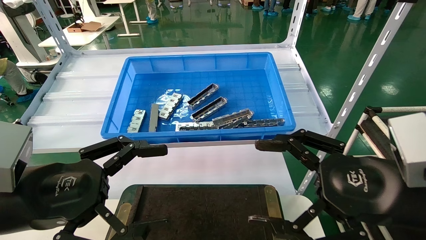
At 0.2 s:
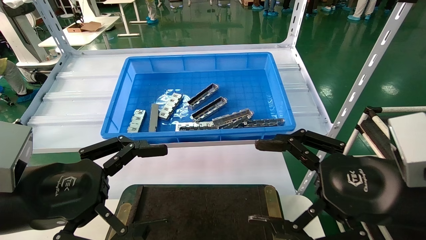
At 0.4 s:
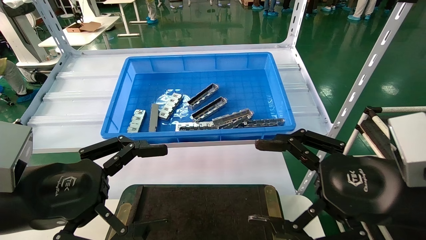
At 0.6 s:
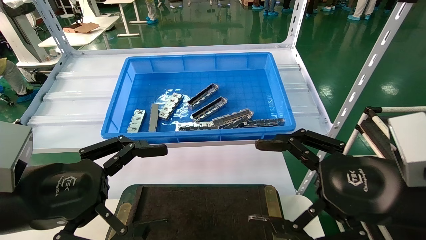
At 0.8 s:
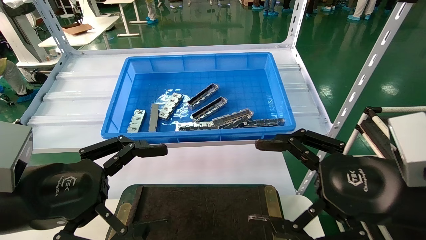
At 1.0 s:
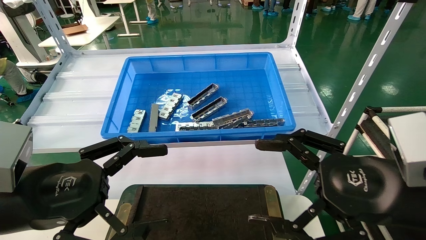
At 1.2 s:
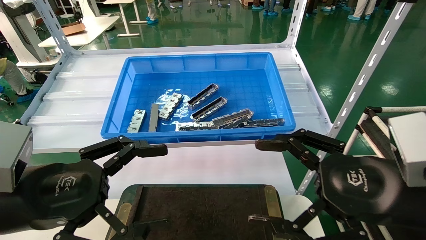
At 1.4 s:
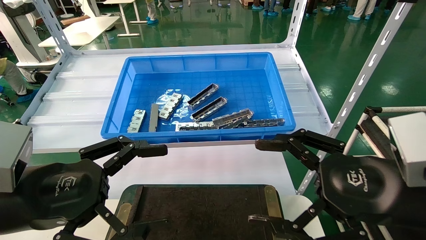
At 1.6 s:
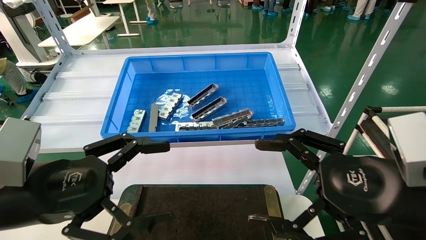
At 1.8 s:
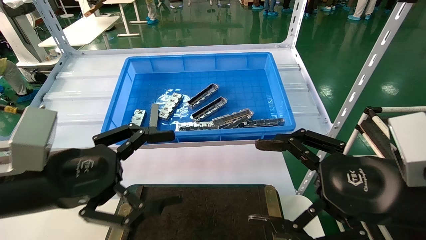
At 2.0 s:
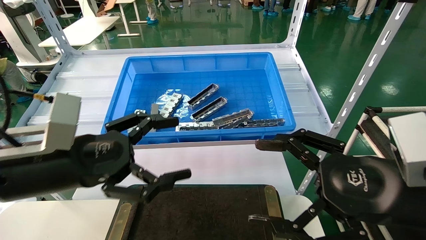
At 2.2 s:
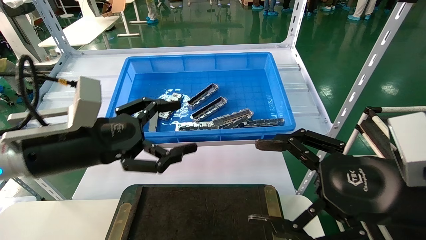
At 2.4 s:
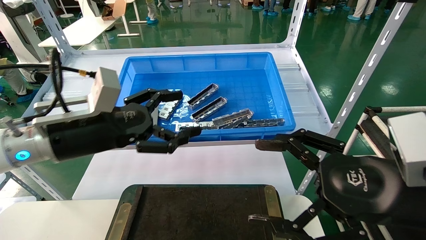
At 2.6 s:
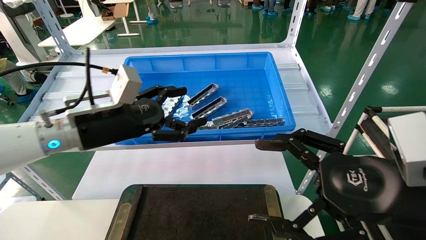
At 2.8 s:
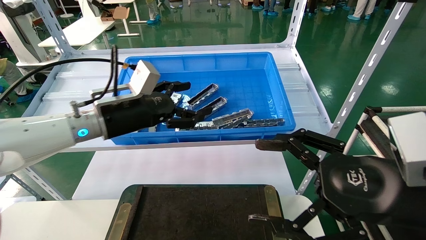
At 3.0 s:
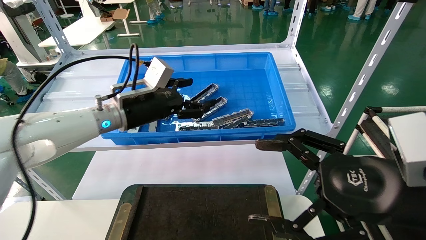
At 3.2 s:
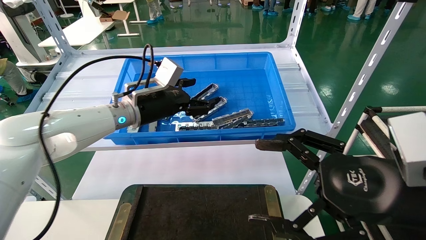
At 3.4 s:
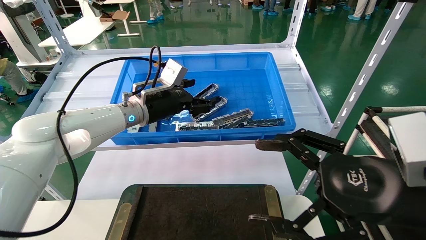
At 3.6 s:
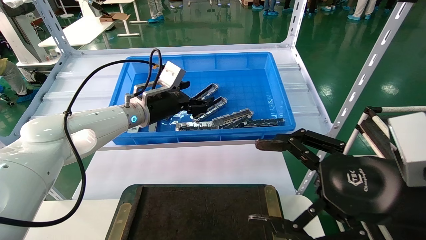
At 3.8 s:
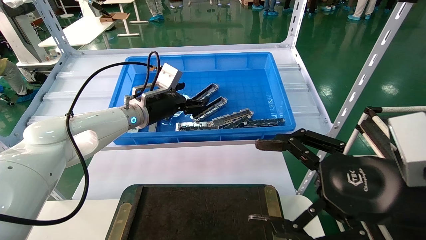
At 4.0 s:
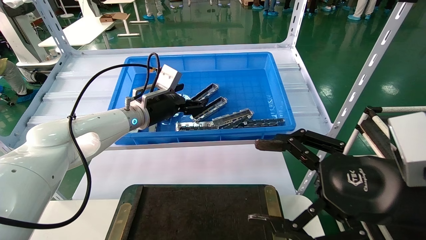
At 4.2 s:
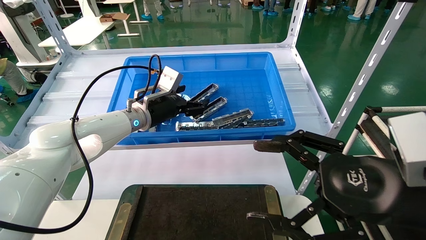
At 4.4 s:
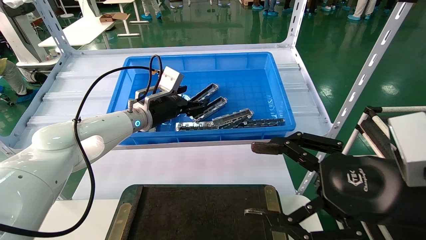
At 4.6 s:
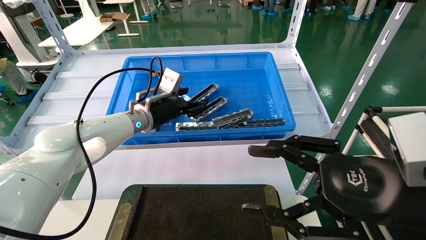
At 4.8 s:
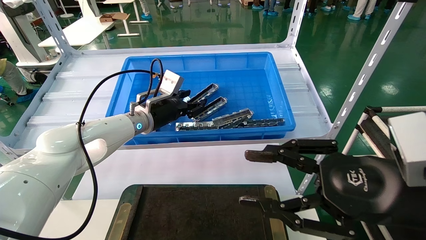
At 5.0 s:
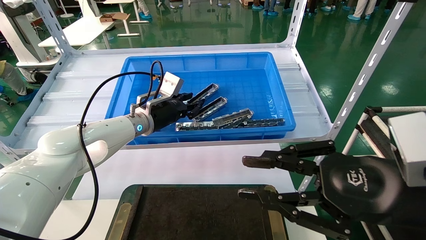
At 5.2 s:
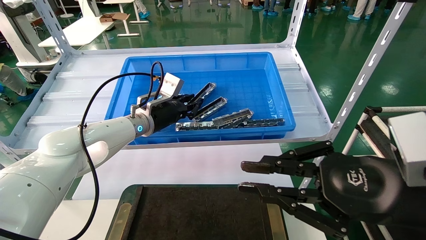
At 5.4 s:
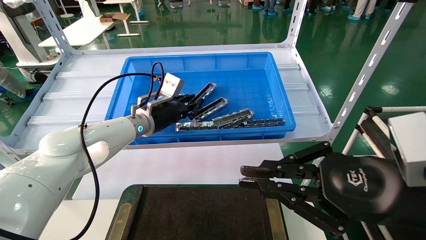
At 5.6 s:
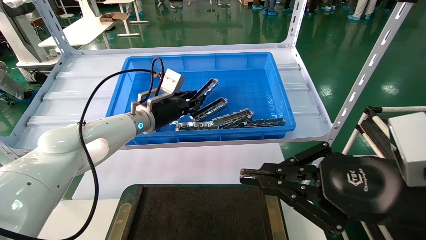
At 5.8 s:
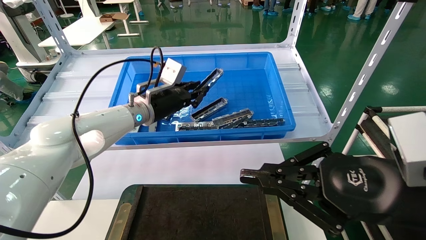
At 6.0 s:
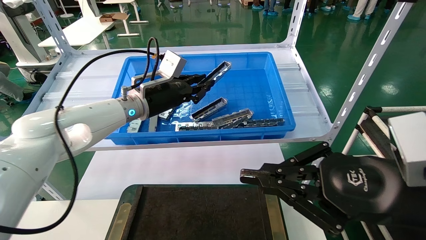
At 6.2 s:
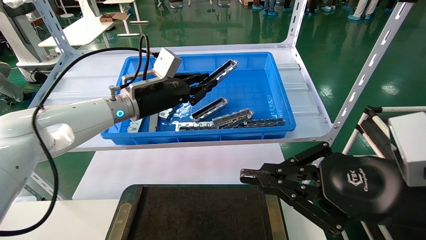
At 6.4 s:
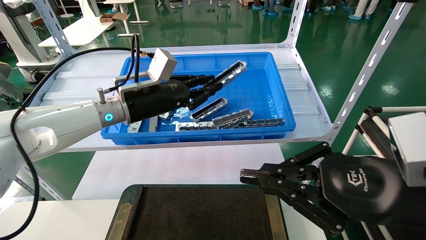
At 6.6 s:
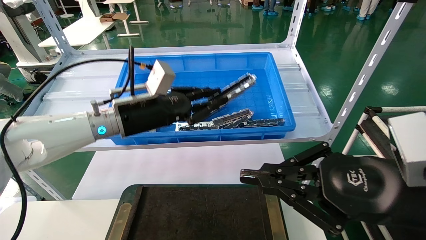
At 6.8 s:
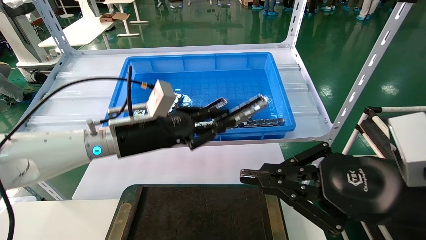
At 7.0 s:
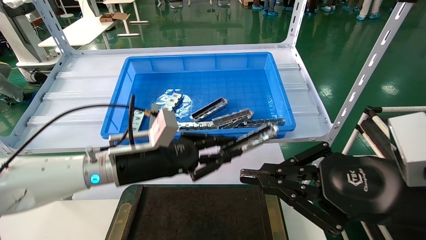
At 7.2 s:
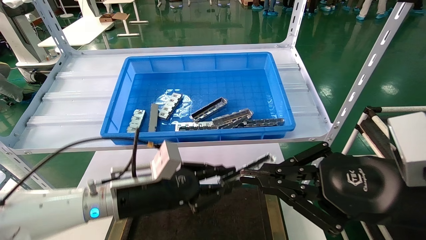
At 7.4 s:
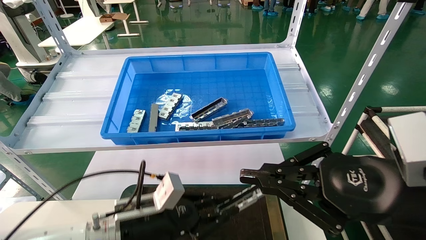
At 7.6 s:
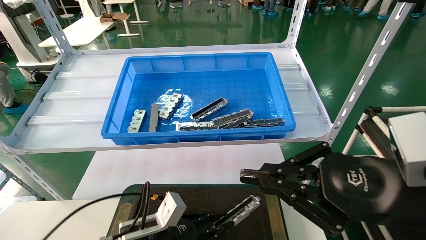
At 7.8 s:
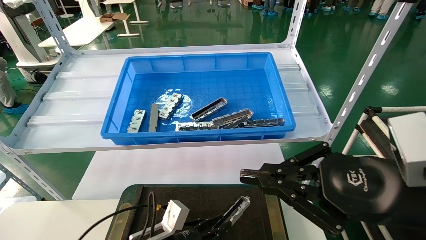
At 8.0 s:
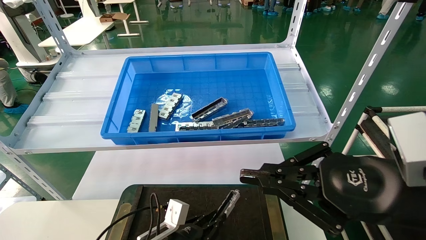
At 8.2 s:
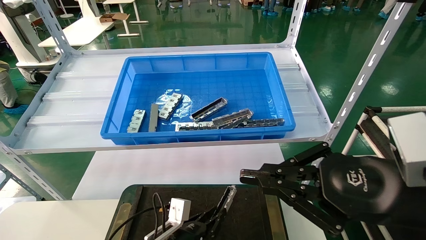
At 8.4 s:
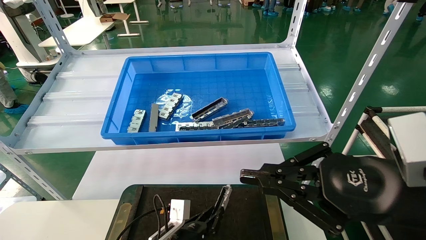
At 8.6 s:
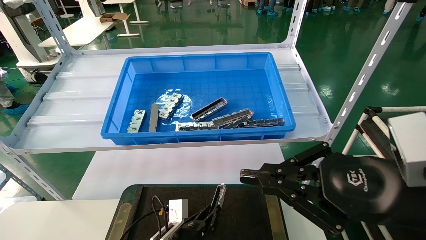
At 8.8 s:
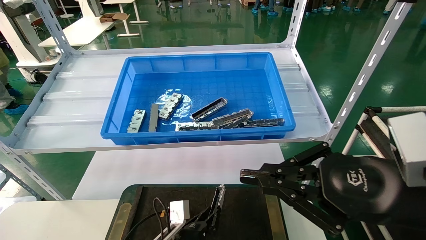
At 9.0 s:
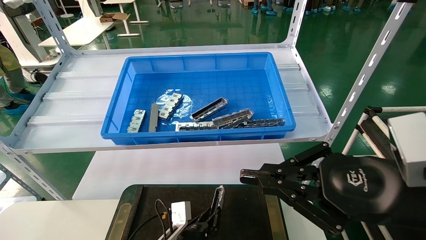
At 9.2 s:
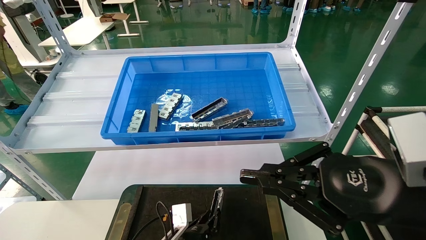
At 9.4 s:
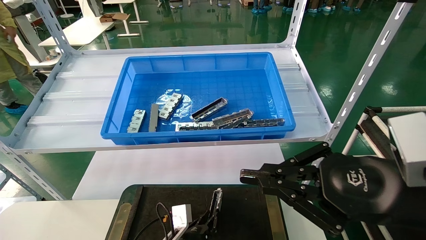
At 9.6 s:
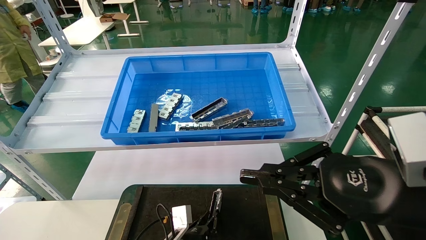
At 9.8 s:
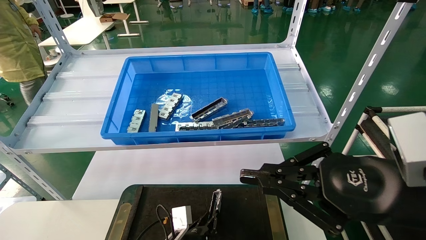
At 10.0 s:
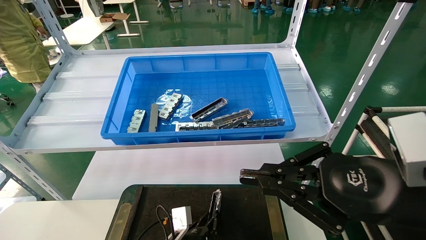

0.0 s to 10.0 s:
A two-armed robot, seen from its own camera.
Task of the whole recording: Grasp the part with one hand and place it on the black container.
Step, 1.8 to 5.2 s: Pick up the front USB bracket from the feeding area.
0.0 to 1.4 s: Neither gripper changes place.
1.4 to 2.8 s: The left gripper moves forward, approximately 20 cm.
2.8 to 4.2 s: The left gripper is displaced forward by some 10 cm.
4.2 to 5.8 s: The right gripper closes its fingers, while the left gripper closes.
5.8 to 7.2 s: The left gripper is displaced backward and downward by roughly 20 cm.
7.2 to 8.6 s: The left gripper shifts roughly 20 cm downward.
8.6 to 10.0 s: The grippers stay close to where they were, moving slightly.

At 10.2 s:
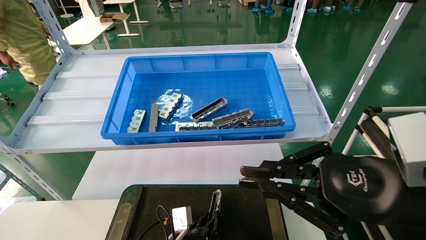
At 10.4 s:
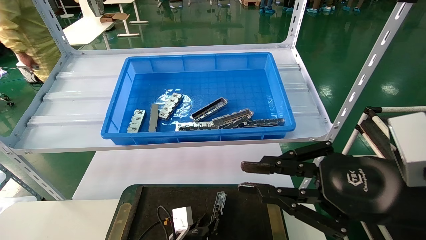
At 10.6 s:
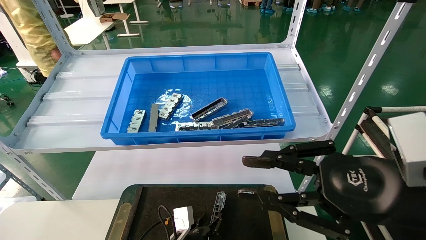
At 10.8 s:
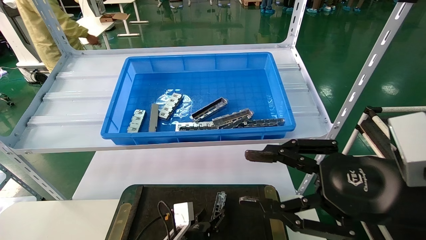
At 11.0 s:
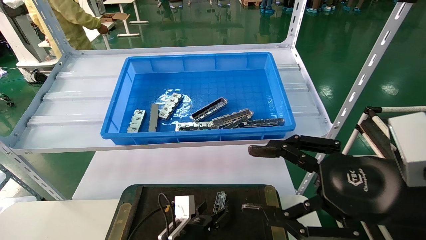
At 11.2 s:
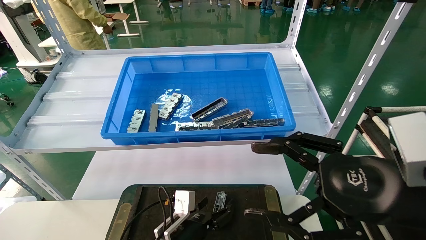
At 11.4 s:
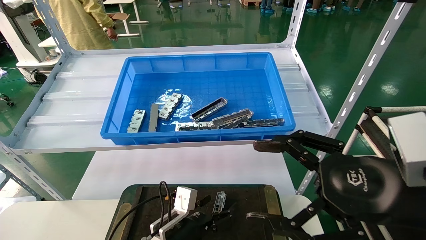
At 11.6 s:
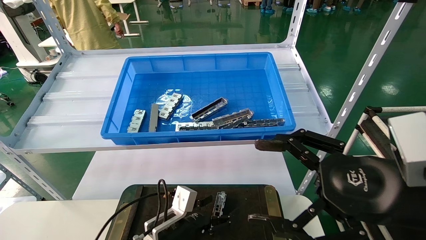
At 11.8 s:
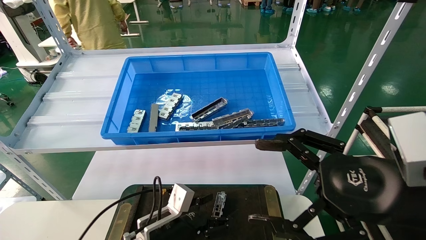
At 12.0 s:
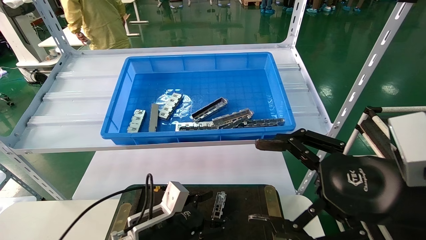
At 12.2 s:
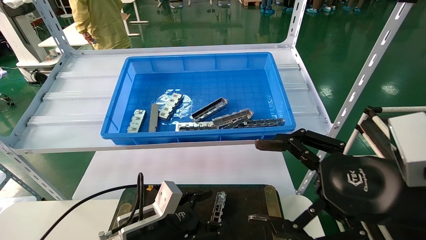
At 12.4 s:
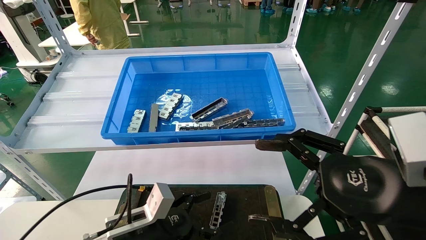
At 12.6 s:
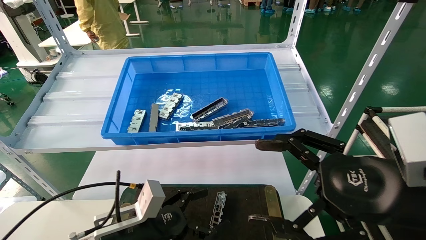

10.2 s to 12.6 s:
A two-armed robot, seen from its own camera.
Task of the whole recording: Grasp the part with one hand and place it on the black container.
10.2 to 11.4 s: The left gripper moves upward, some 5 cm, and opens. Meanwhile the right gripper opens up.
11.4 to 12.6 s: The left gripper goes roughly 10 cm upward, to the left and backward.

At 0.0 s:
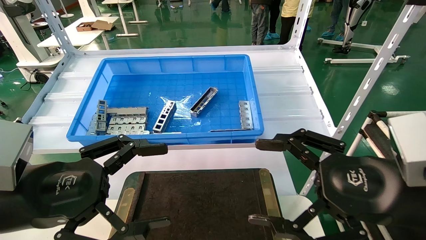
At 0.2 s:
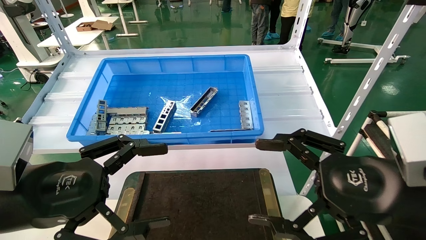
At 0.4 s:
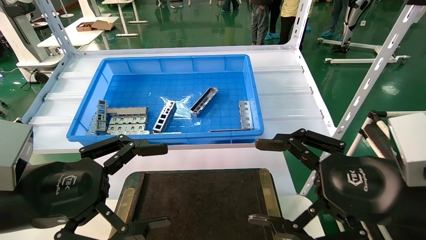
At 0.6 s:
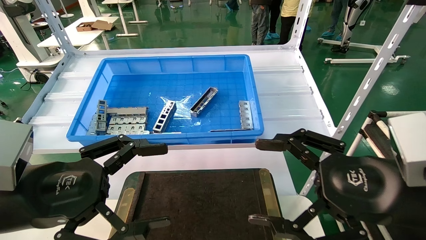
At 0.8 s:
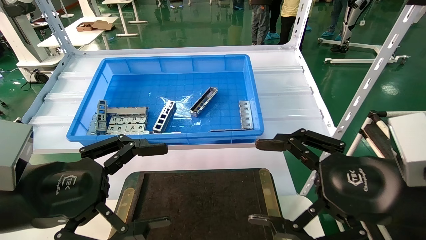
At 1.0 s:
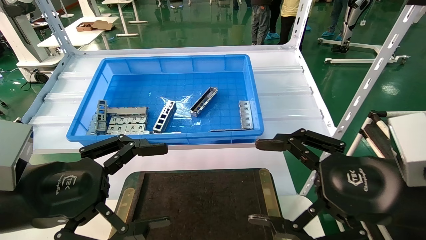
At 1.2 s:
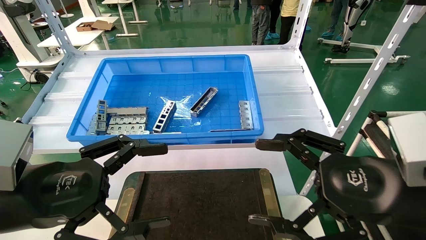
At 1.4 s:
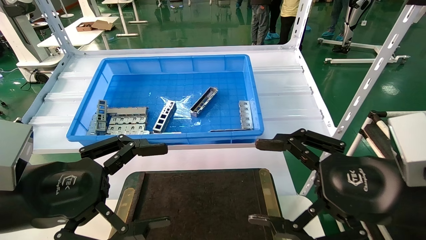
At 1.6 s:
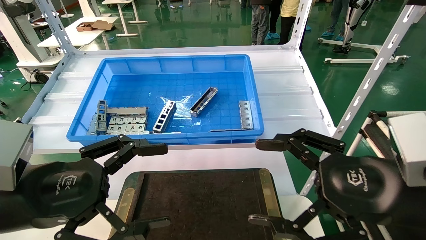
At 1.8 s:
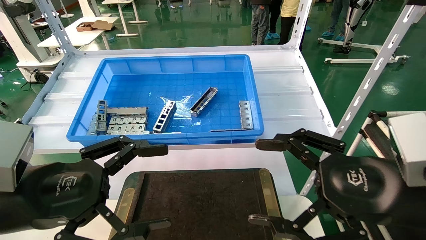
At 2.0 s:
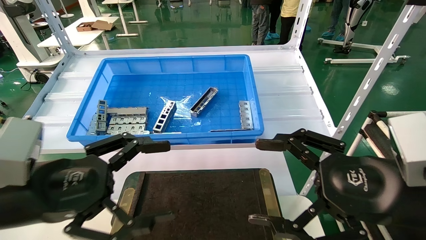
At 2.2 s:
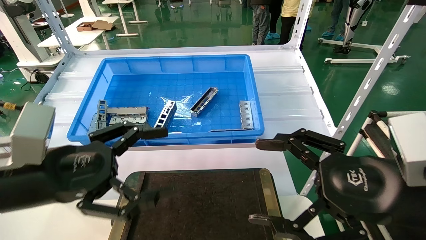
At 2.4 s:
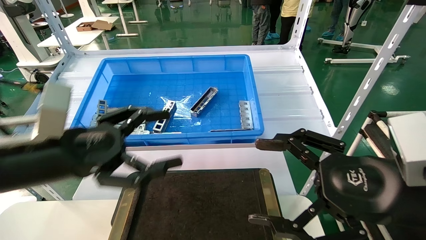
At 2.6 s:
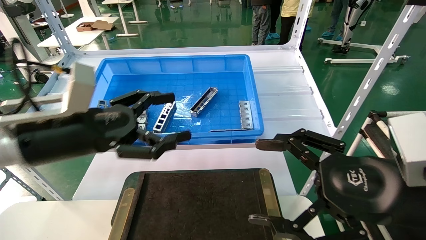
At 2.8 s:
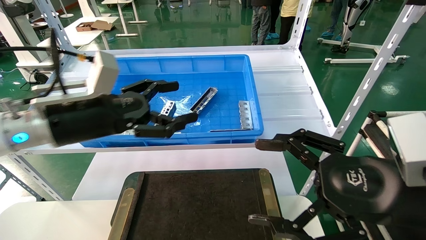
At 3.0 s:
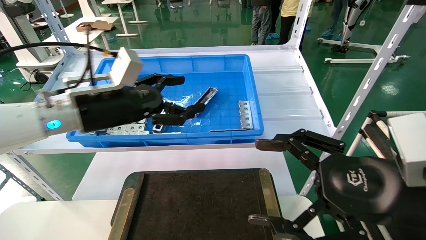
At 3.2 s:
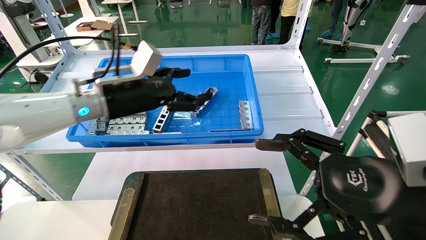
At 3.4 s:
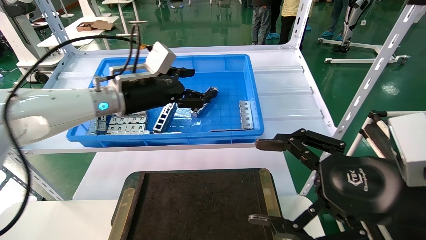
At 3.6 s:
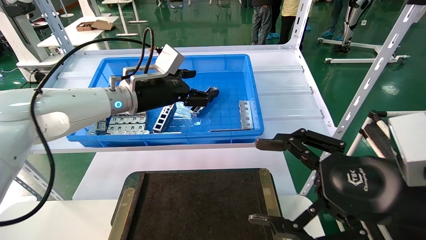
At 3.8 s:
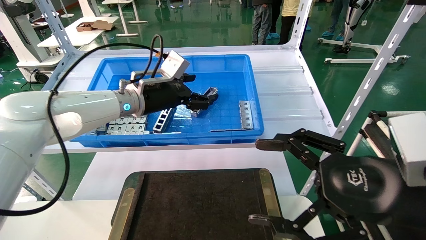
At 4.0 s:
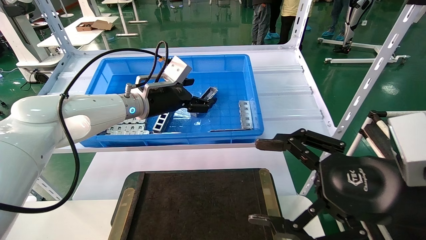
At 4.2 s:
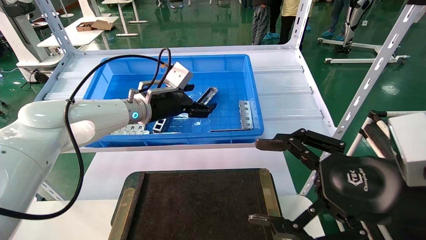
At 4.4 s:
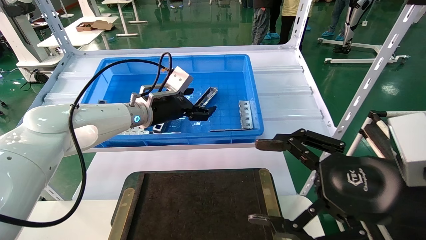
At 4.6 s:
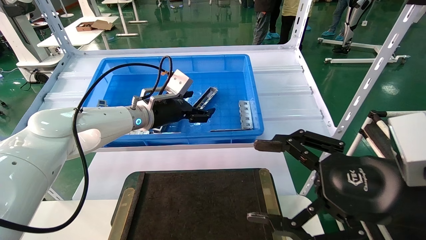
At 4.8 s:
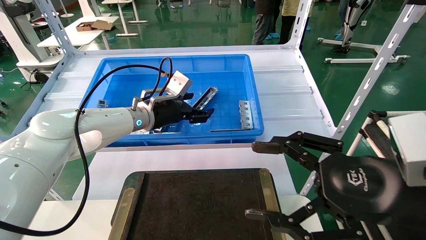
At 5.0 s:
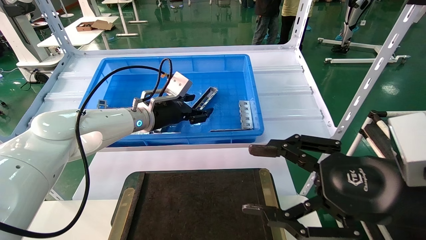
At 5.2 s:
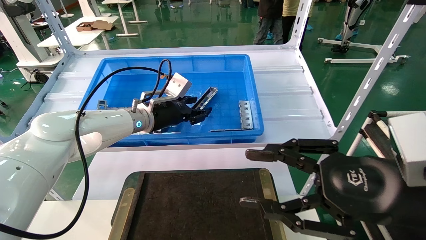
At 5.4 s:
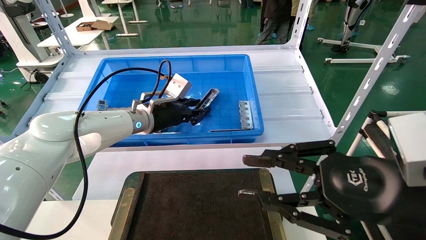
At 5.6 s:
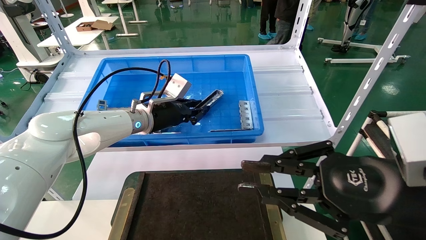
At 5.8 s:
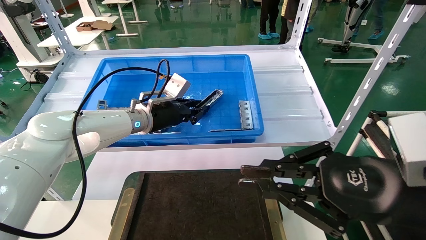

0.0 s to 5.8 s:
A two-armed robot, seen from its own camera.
Task of the whole recording: Grasp the part with one hand and place it on the black container.
Step, 2.2 to 5.4 s: Pick up the front USB bracket from the feeding area.
0.0 to 1.4 s: Neither gripper changes place.
1.4 to 2.8 s: The left gripper goes approximately 15 cm forward.
2.8 to 4.4 s: The left gripper goes some 20 cm forward and to the right.
4.4 to 5.8 s: The right gripper closes its fingers. The left gripper closes.
